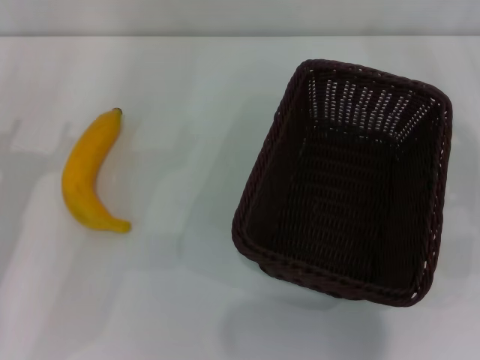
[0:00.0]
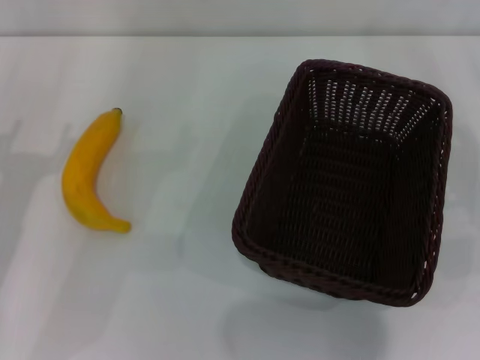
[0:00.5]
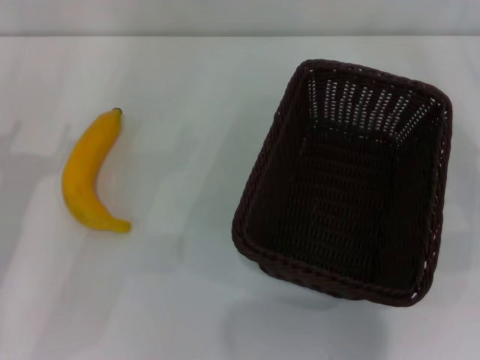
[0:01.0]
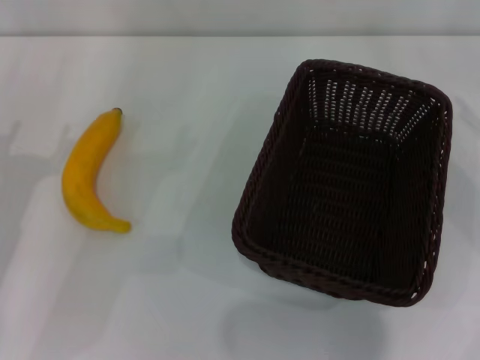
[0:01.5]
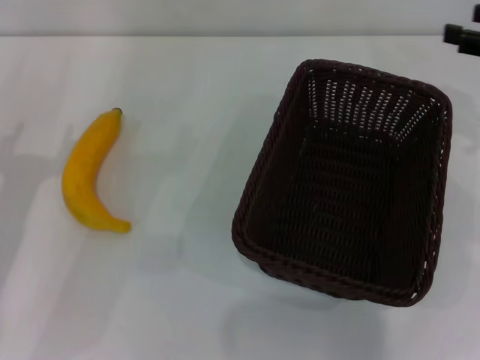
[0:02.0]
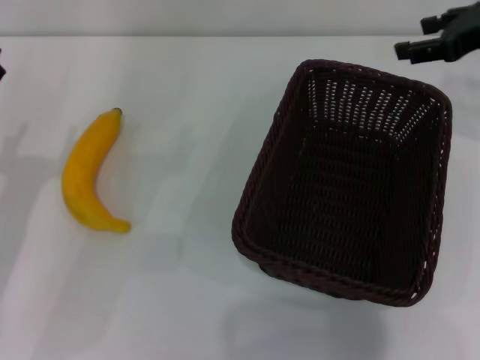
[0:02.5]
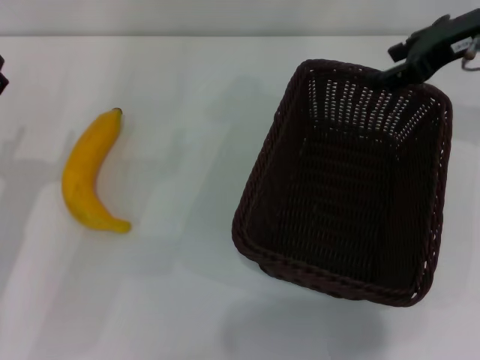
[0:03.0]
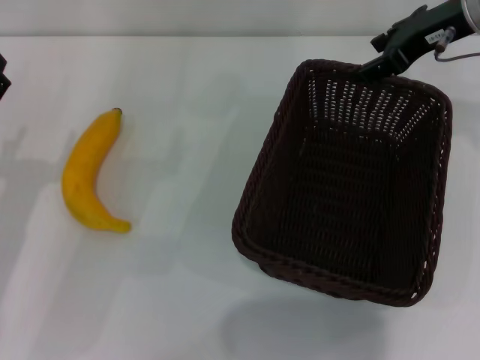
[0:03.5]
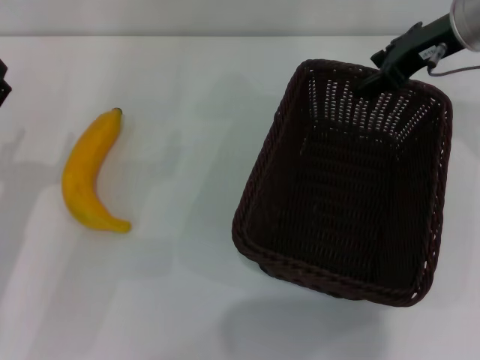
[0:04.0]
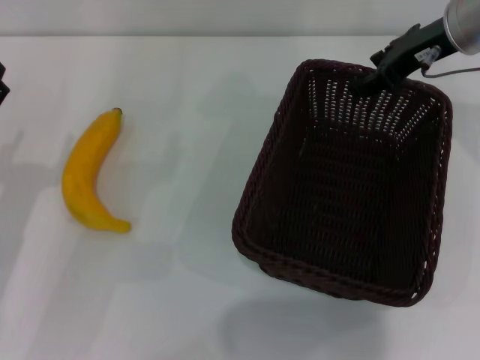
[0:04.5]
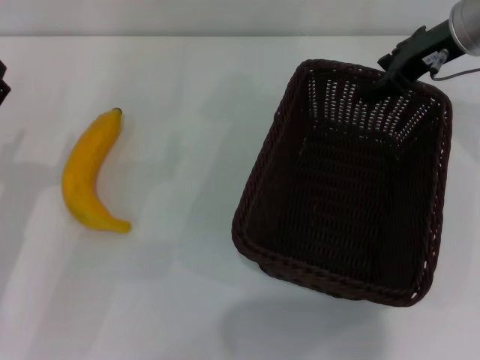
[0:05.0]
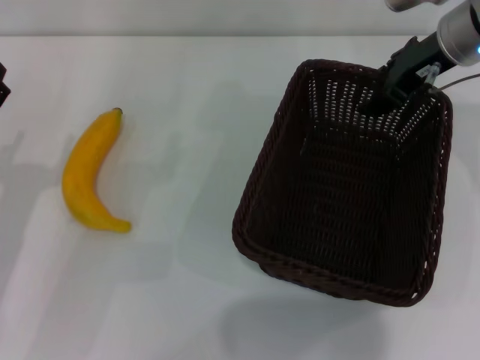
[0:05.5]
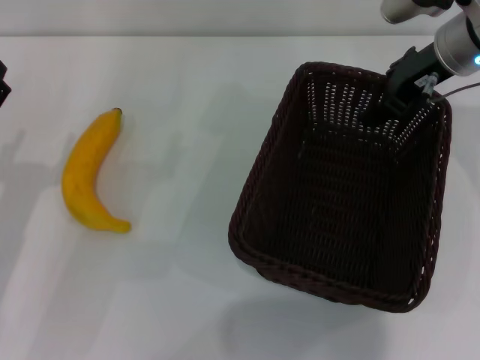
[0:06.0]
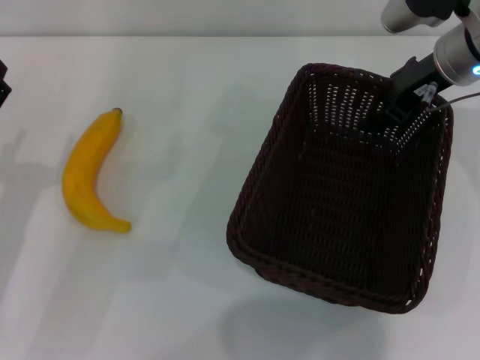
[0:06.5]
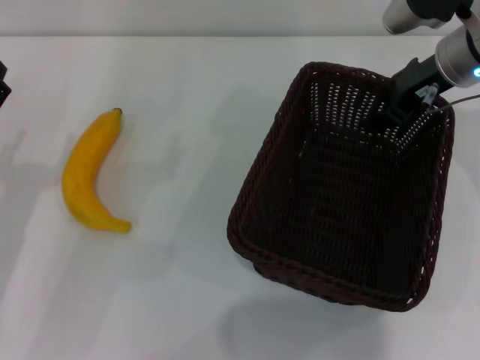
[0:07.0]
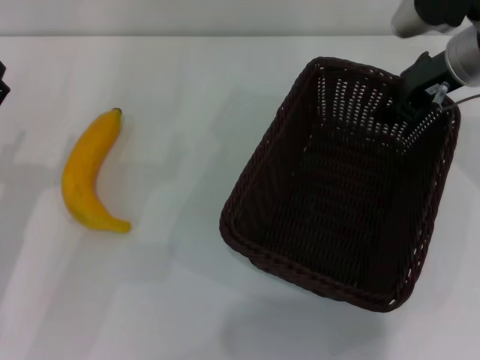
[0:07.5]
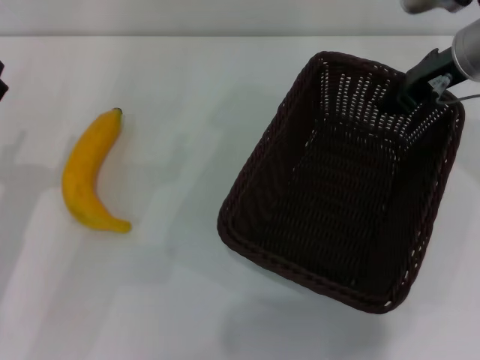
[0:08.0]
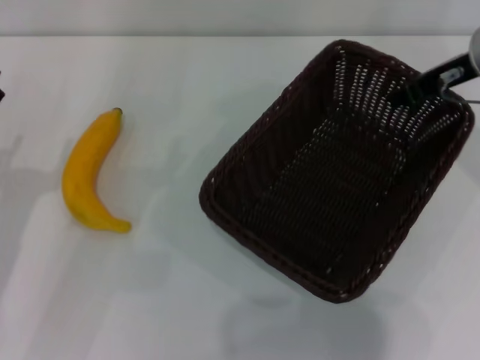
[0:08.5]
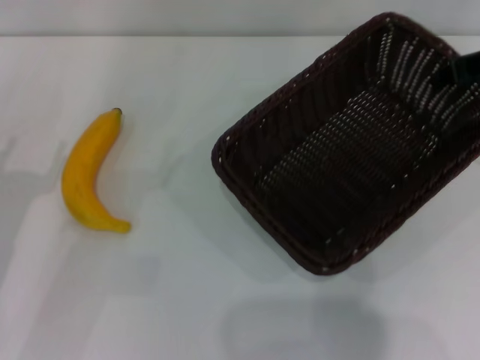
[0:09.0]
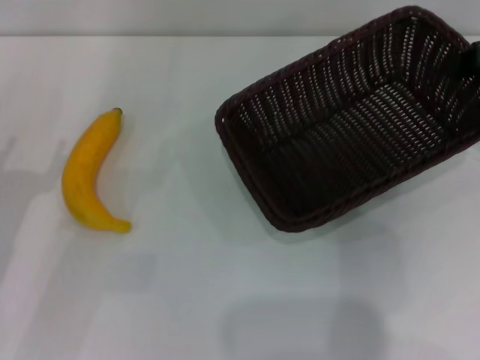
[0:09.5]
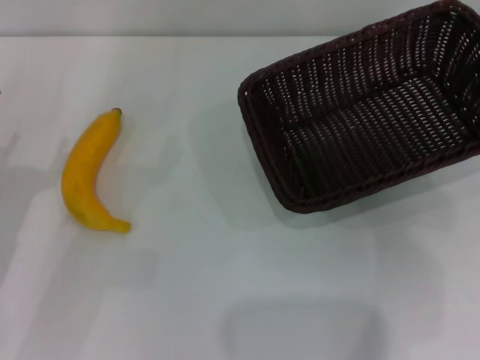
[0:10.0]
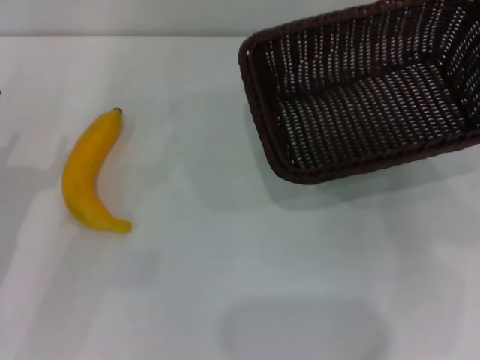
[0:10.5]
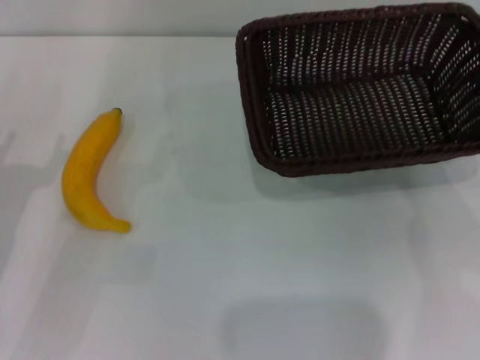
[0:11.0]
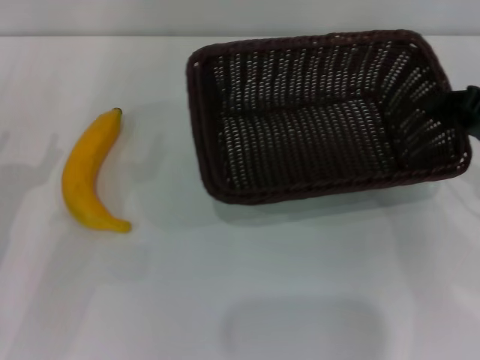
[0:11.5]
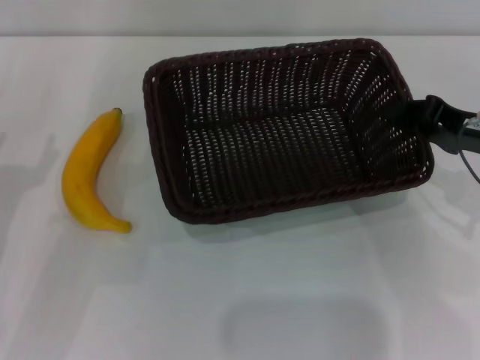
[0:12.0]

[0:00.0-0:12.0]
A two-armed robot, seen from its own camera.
Step, 0:00.0 to 0:10.0: Pick up the dark basket with the right gripper.
0:00.0 to 0:02.0: The right gripper moves forward, upward and to the left, roughly 15 cm.
0:02.0 to 0:04.0: The right gripper is displaced to the left and forward by approximately 15 cm.
0:04.0 to 0:06.0: There are only small adjustments of the grippers.
0:06.0 to 0:08.0: The right gripper closes its fingers.
0:08.0 to 0:10.0: The right gripper travels to the right and backward by some 15 cm.
0:10.0 to 0:12.0: The right gripper heads downward and to the left, covering approximately 10 cm.

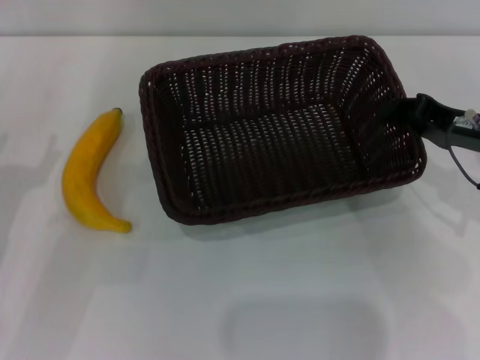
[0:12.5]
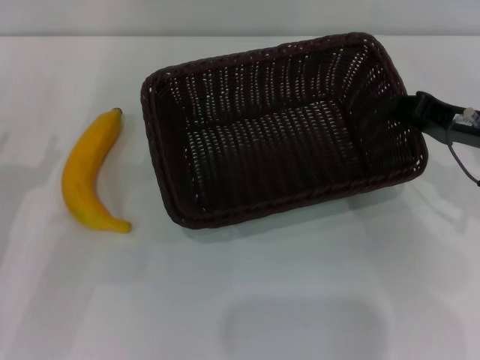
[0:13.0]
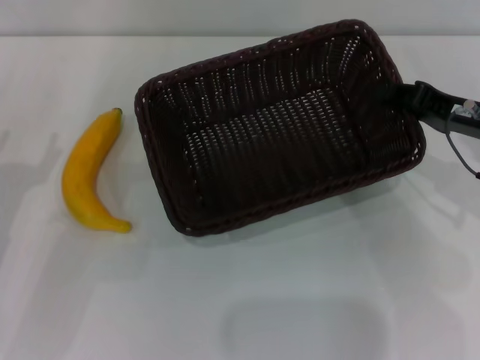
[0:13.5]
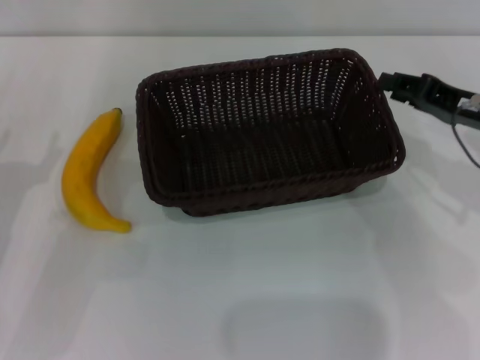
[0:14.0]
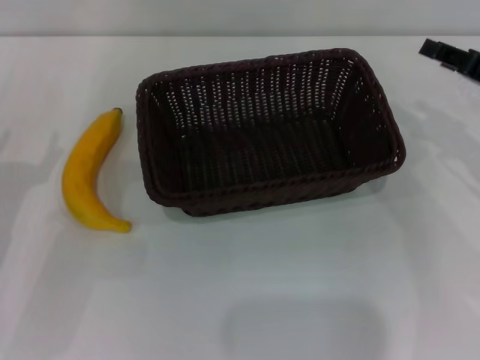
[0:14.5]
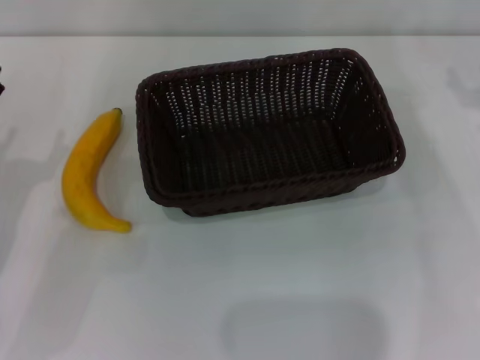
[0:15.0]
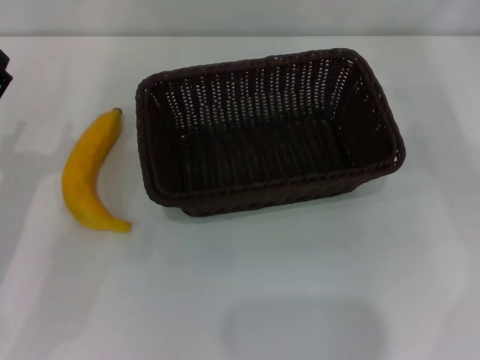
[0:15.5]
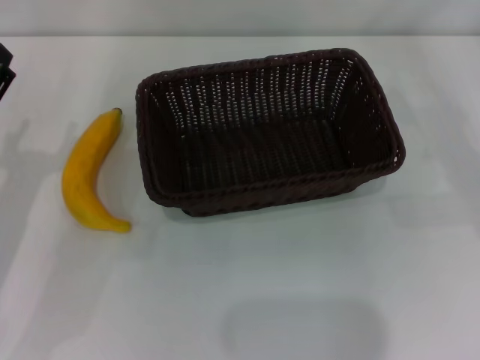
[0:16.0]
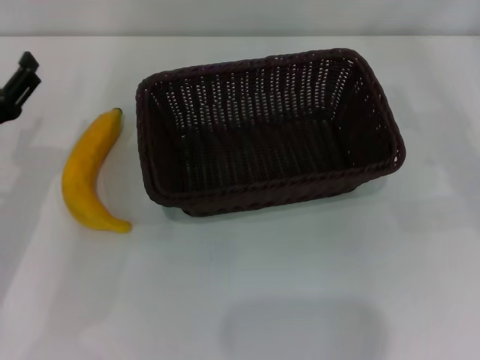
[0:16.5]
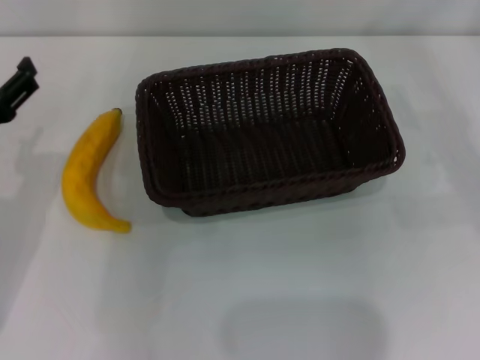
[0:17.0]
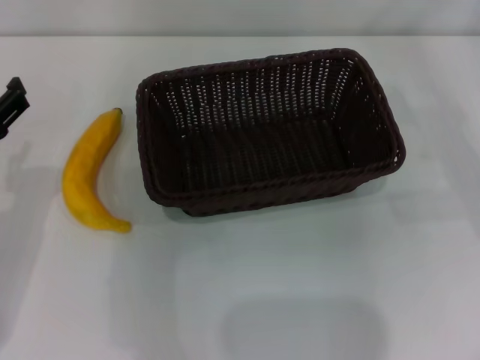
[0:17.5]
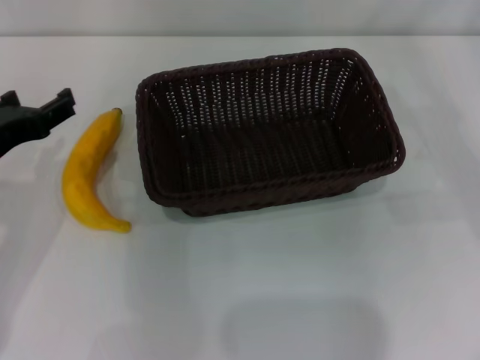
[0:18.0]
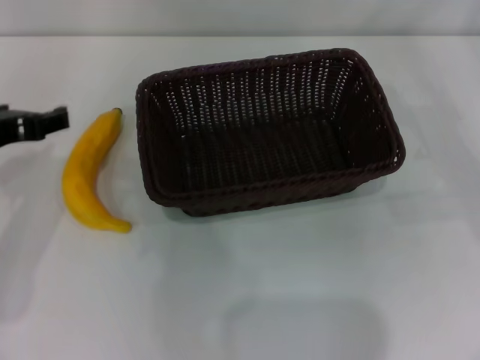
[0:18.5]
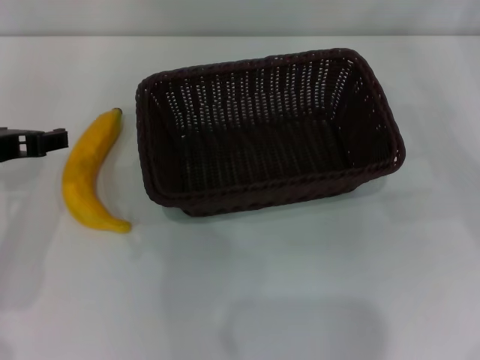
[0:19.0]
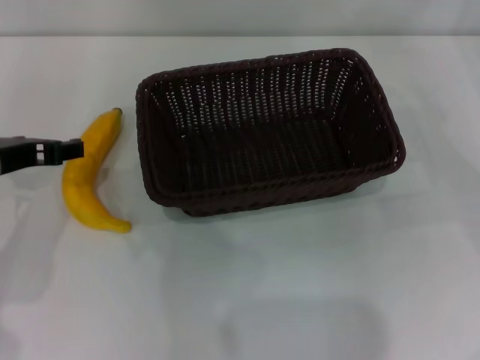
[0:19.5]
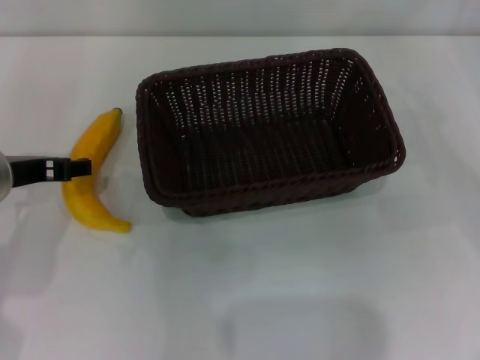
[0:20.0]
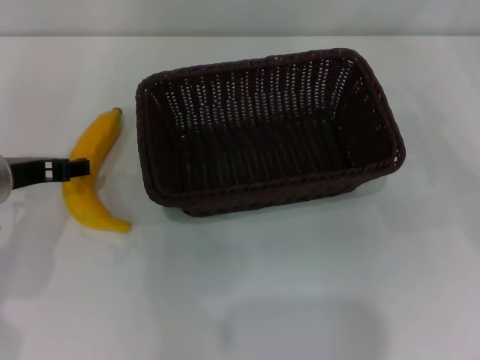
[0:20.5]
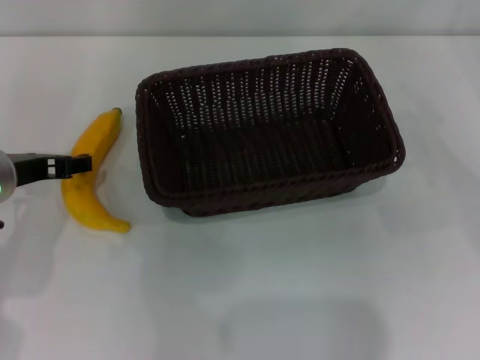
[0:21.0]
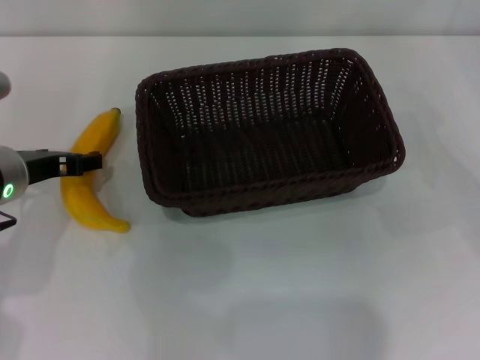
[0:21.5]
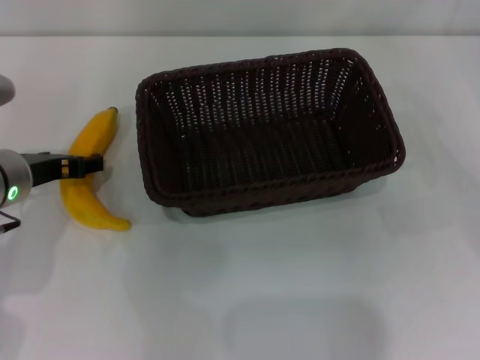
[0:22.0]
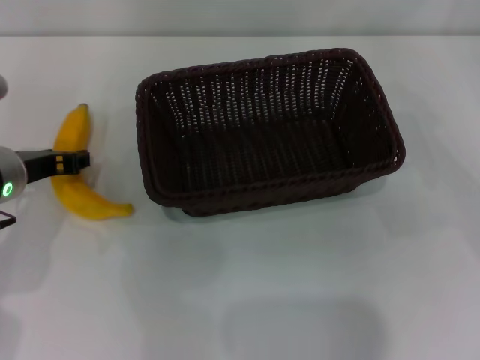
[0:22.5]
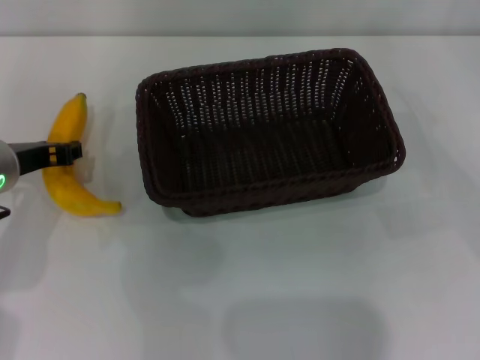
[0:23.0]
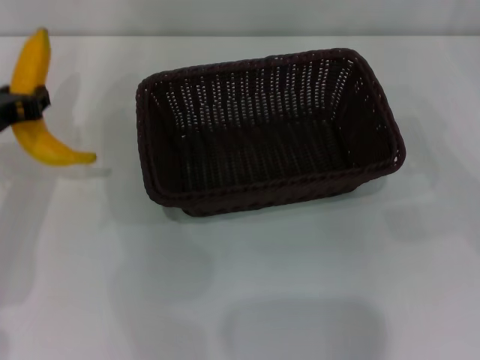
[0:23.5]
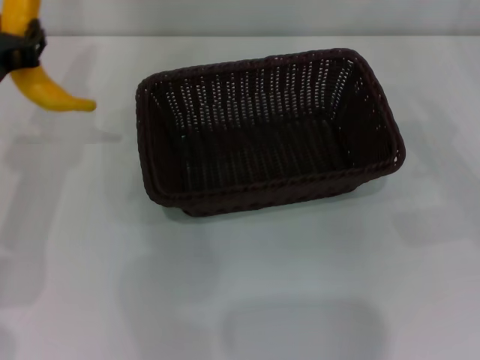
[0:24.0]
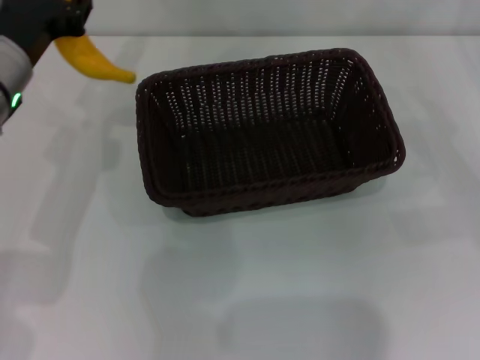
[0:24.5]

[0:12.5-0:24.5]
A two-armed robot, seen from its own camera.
Step, 0:12.5 to 0:14.5: Place the dark basket in the center of view with the right gripper.
Step, 0:15.0 to 0:23.5: Pick up the banana with the left gripper.
0:12.5 to 0:14.5: The right gripper opens.
0:14.5 to 0:16.5: The right gripper moves to the right, approximately 10 cm, and opens its fingers.
0:16.5 to 0:18.5: The left gripper is displaced upward by some 10 cm.
0:18.5 to 0:20.5: The left gripper moves downward, approximately 5 cm.
0:20.5 to 0:22.5: The left gripper closes its fingers.
0:22.5 to 0:24.5: The left gripper is displaced upward by about 5 cm, and closes.

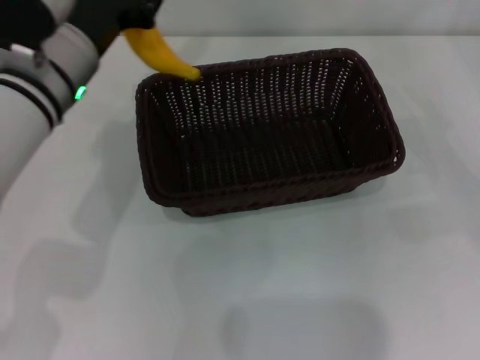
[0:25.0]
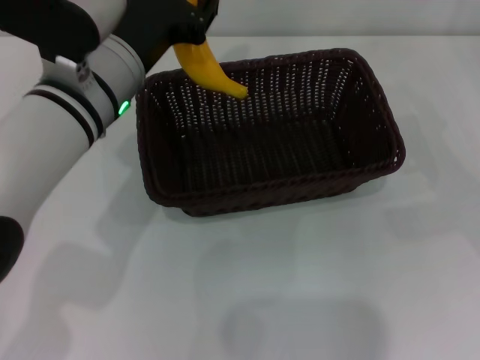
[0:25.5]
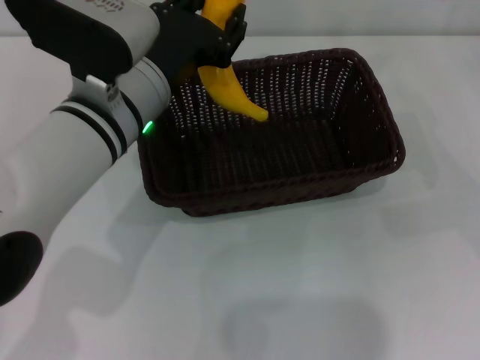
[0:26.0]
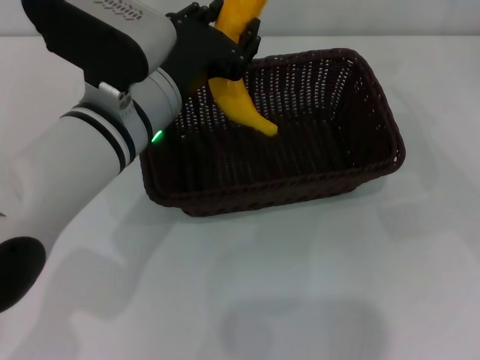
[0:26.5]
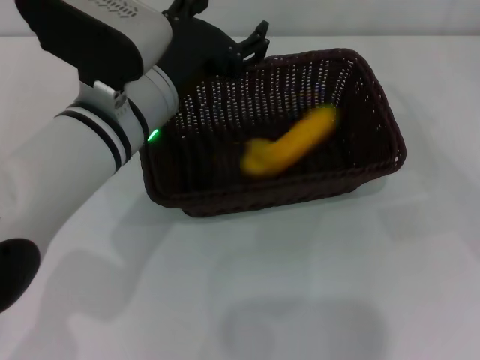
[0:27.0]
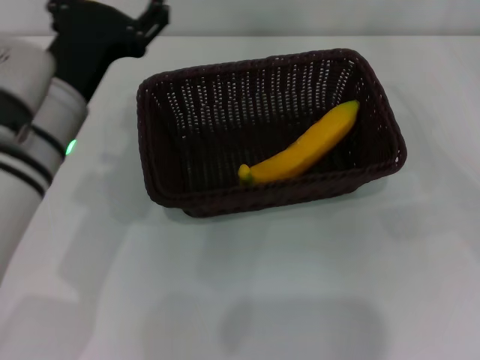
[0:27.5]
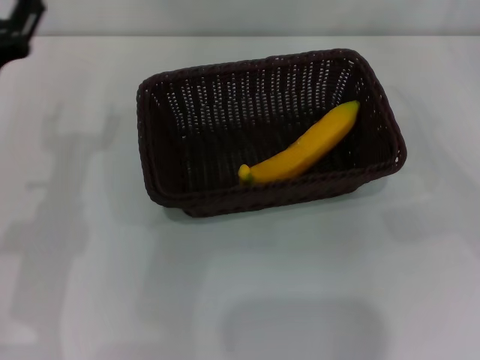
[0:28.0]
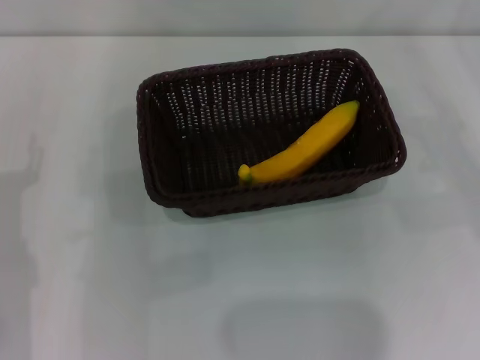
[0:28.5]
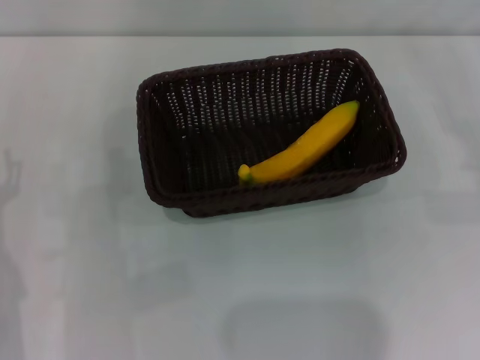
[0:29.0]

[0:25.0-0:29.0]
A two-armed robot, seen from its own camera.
Step, 0:25.0 to 0:27.0: Place the banana into the dark basket with the left gripper.
0:25.0 to 0:27.0: The left gripper heads to the right, covering approximately 5 cm, and opens its fingers.
0:27.0 to 0:29.0: The left gripper travels to the left, backward and downward by roughly 20 cm.
